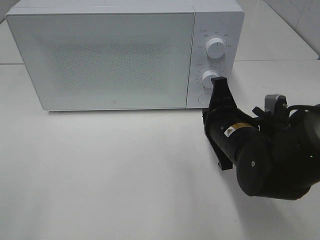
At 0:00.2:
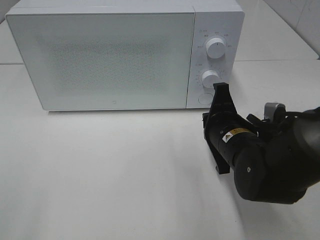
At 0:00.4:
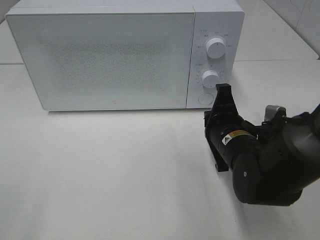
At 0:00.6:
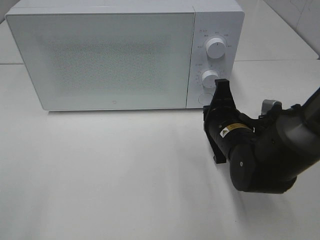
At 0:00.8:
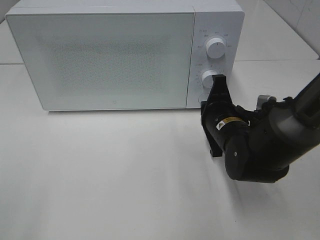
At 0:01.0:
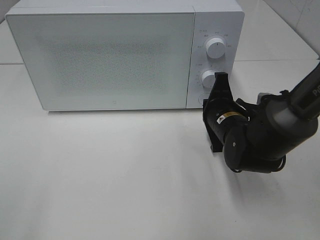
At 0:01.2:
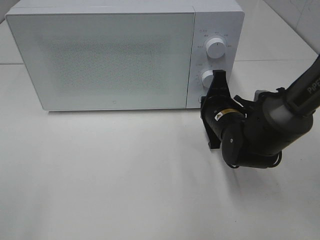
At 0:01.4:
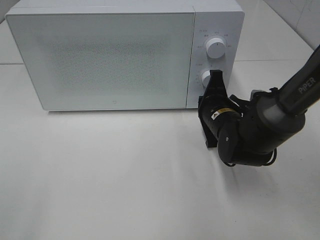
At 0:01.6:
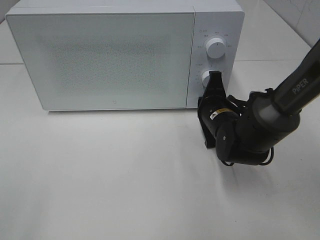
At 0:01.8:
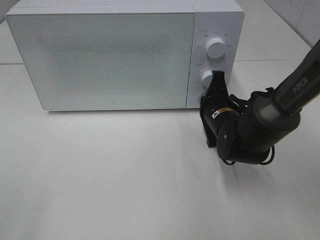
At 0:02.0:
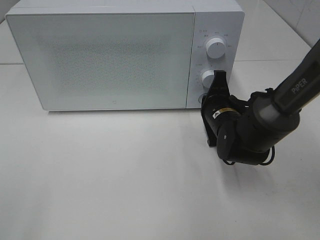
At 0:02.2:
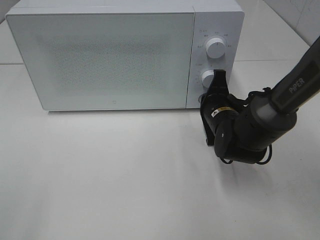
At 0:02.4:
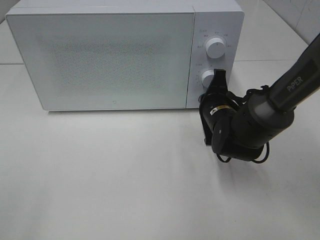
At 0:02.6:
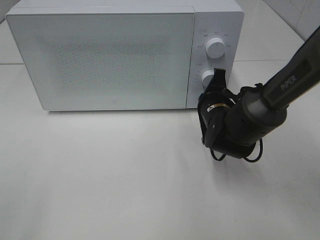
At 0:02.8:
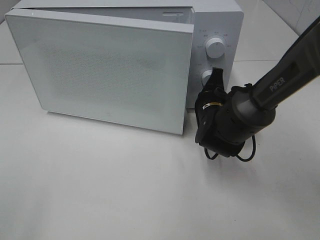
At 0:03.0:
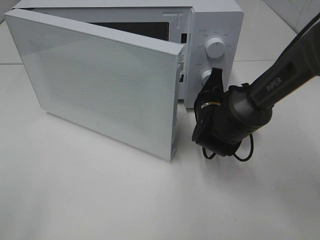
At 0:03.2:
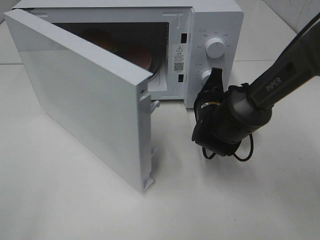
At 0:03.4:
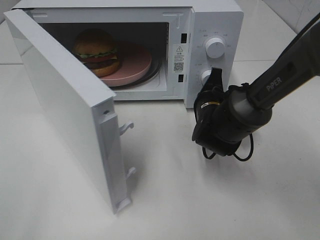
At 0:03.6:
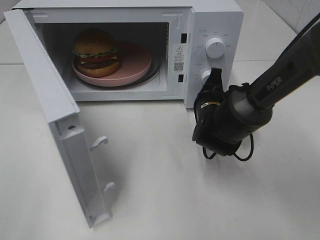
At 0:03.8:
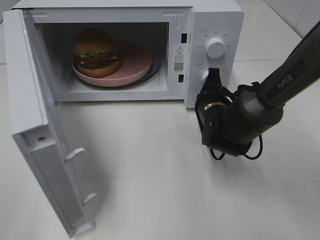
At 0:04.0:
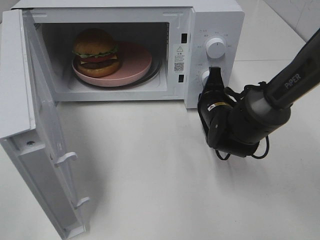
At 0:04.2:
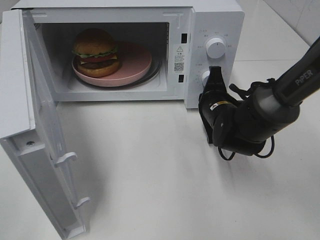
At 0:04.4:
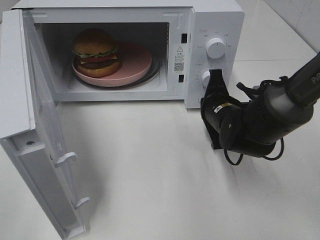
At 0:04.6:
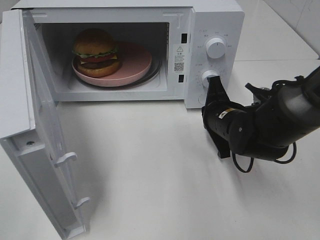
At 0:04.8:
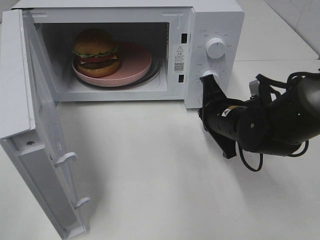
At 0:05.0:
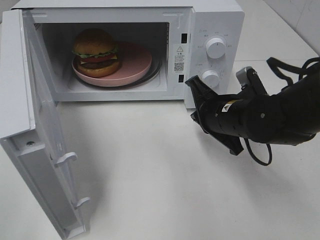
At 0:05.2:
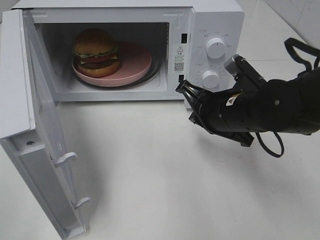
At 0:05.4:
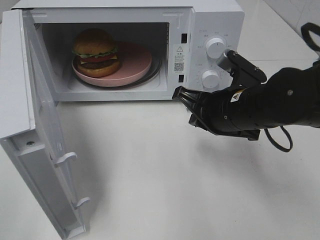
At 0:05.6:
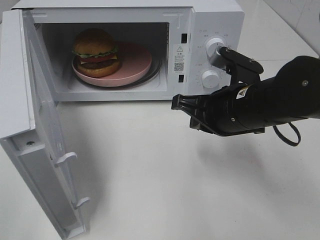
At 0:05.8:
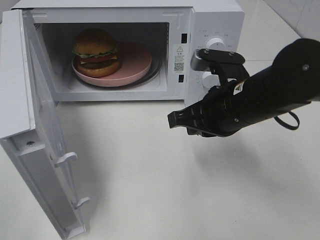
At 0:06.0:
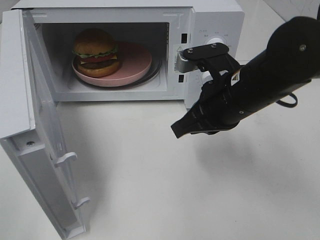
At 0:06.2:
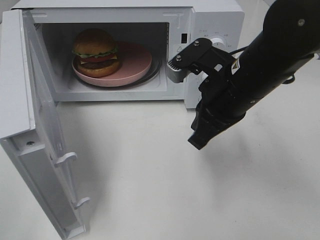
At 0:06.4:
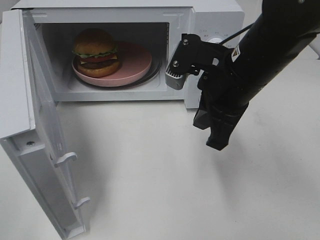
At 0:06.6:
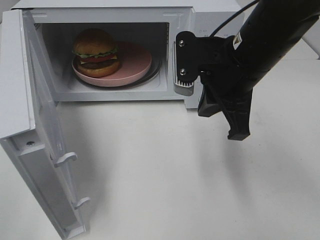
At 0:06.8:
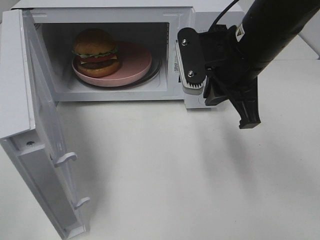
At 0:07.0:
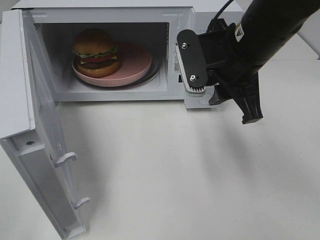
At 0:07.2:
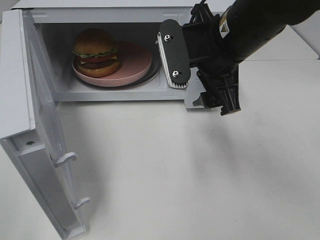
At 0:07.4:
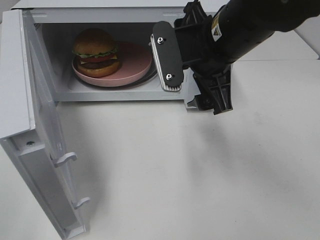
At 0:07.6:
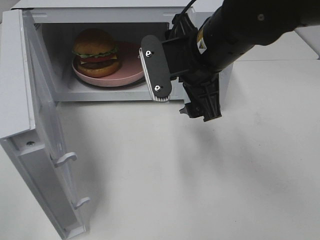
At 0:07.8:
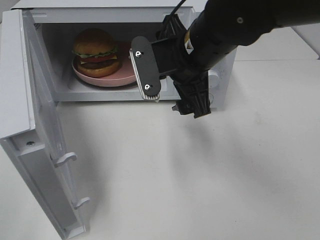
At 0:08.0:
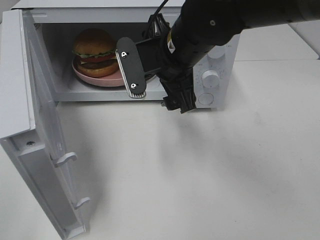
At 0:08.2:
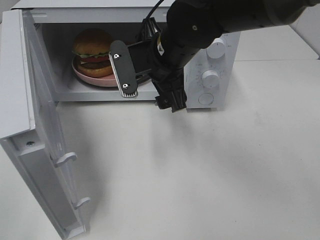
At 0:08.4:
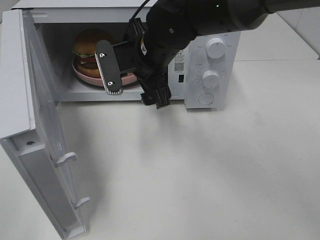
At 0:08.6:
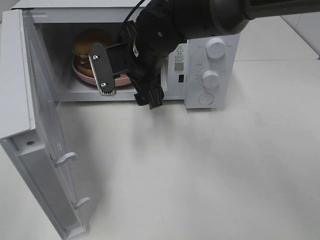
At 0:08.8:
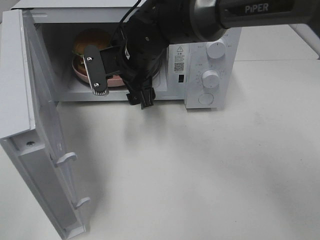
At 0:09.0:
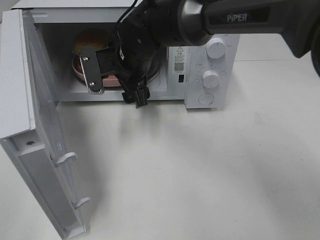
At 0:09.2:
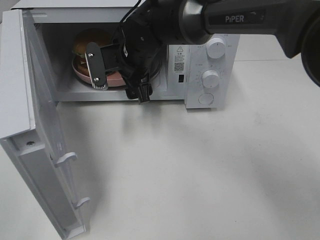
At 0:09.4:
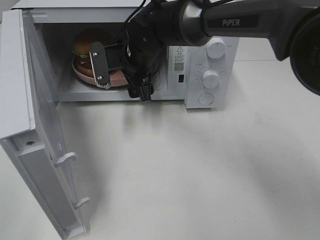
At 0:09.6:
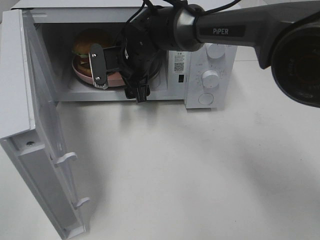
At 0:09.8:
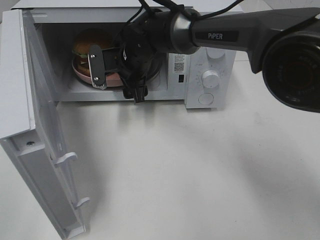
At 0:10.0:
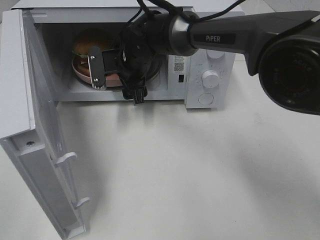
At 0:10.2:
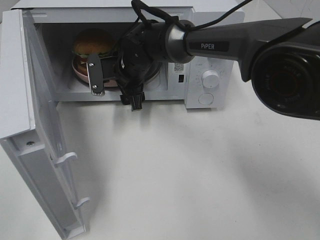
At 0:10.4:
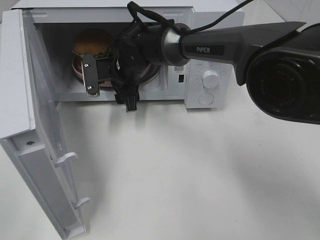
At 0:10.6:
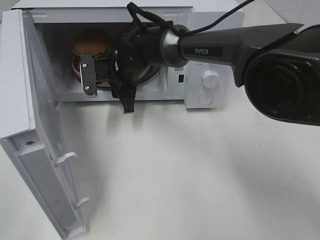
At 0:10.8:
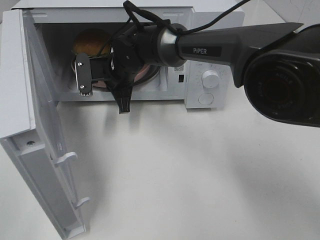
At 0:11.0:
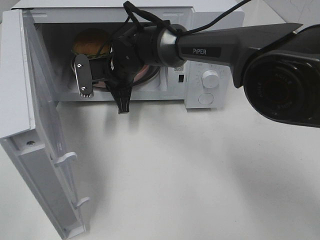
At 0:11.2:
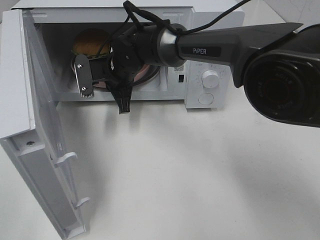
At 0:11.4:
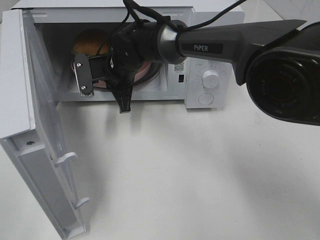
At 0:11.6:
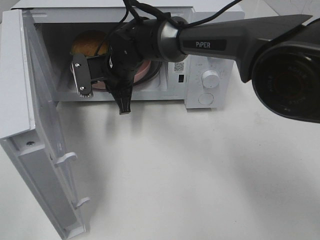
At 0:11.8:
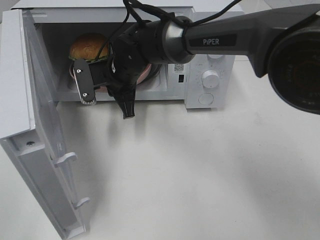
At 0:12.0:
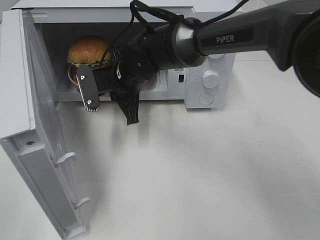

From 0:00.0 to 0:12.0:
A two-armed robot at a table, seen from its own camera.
Task of the whole recording: Heat the burger.
Step, from 0:00.0 to 0:04.4: Right hand: press the switch.
Step, from 0:04.6 to 0:10.8: Right hand: grab the plate with the hamburger.
From 0:00.0 to 0:01.6: The right gripper goes approximately 10 cm forward.
From 0:04.4 to 0:06.0: The right gripper goes some 15 cm upward and backward.
From 0:06.0 to 0:07.6: The right gripper shifts by some 5 cm, and opens its fingers.
From 0:07.6 to 0:09.0: The right gripper heads to the left, forward and downward, covering about 15 cm.
From 0:09.0 to 0:10.4: The right gripper ends up about 5 cm from where it was.
From 0:10.4 to 0:12.0: The right gripper travels backward by roughly 5 cm, and closes its fingers.

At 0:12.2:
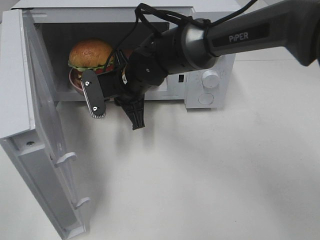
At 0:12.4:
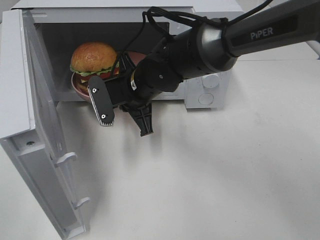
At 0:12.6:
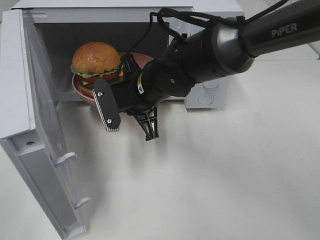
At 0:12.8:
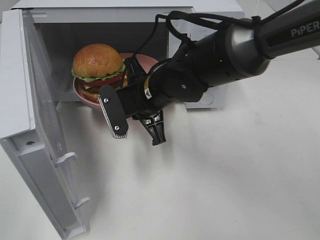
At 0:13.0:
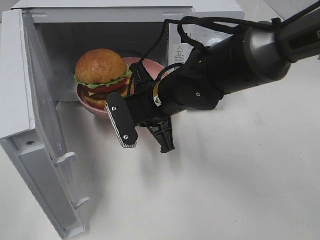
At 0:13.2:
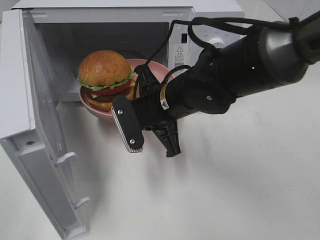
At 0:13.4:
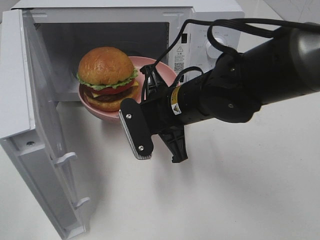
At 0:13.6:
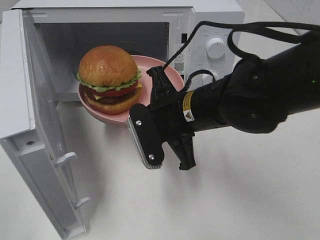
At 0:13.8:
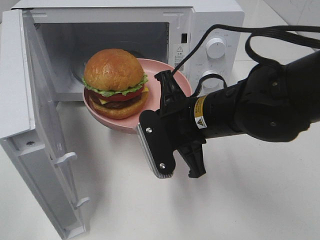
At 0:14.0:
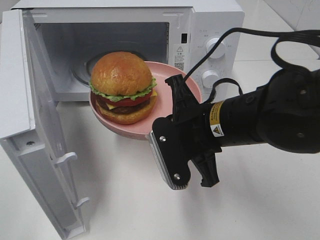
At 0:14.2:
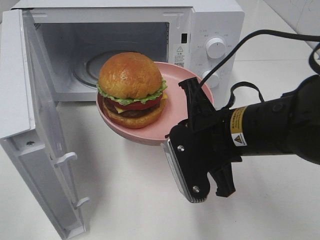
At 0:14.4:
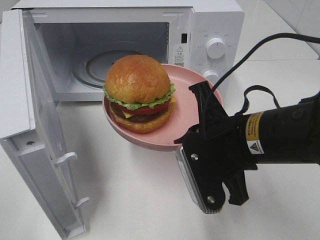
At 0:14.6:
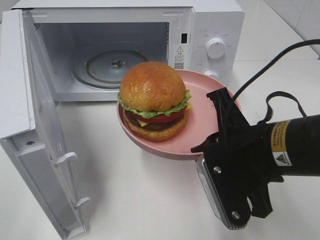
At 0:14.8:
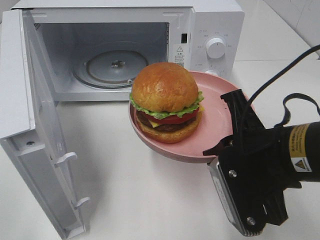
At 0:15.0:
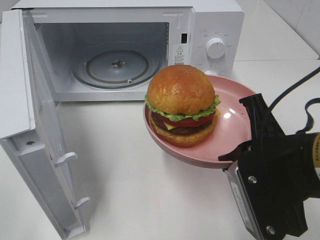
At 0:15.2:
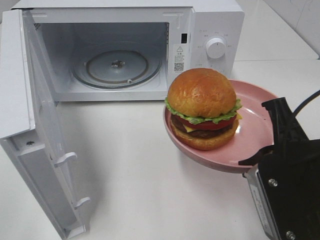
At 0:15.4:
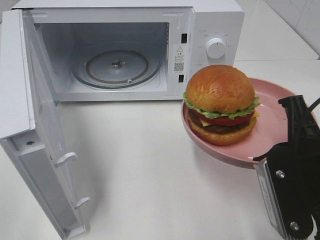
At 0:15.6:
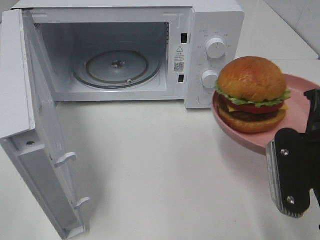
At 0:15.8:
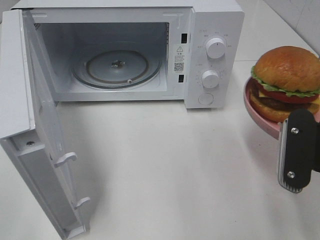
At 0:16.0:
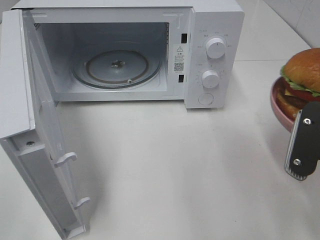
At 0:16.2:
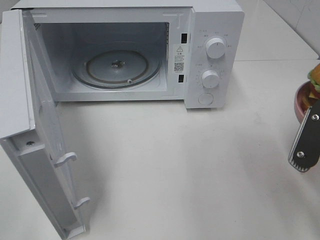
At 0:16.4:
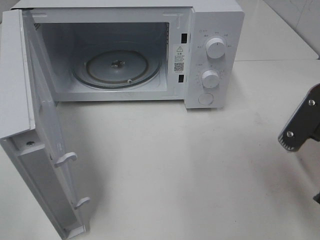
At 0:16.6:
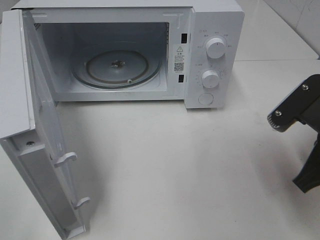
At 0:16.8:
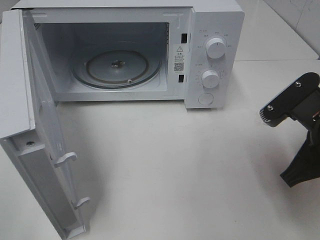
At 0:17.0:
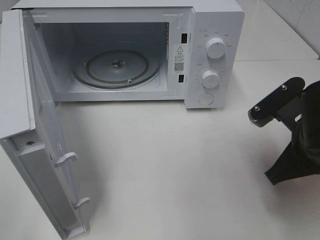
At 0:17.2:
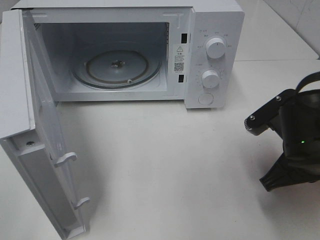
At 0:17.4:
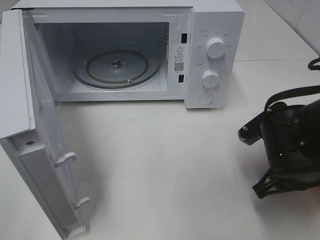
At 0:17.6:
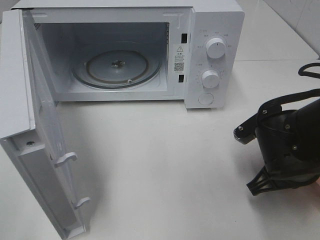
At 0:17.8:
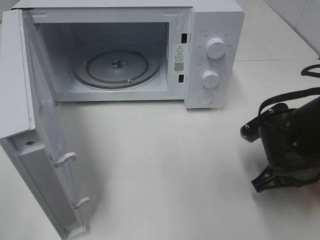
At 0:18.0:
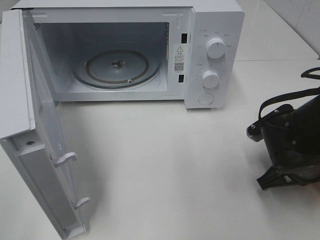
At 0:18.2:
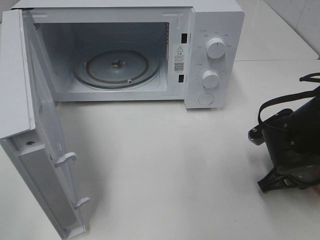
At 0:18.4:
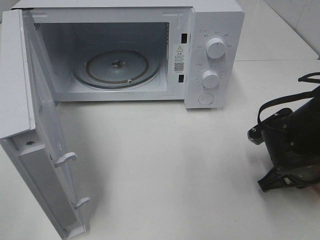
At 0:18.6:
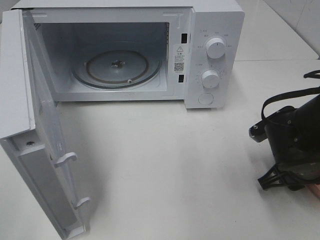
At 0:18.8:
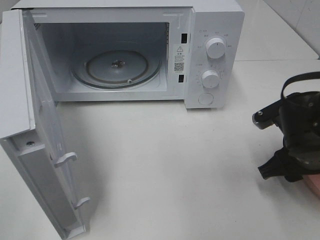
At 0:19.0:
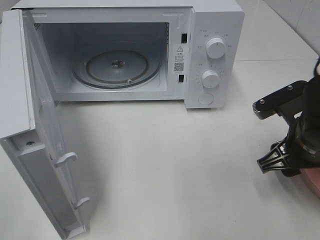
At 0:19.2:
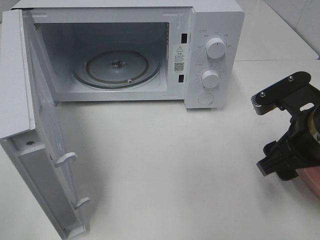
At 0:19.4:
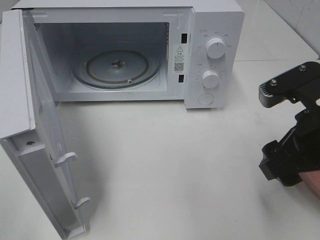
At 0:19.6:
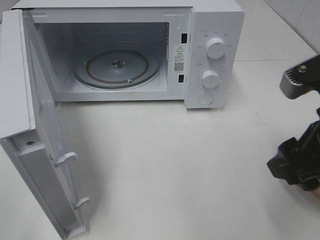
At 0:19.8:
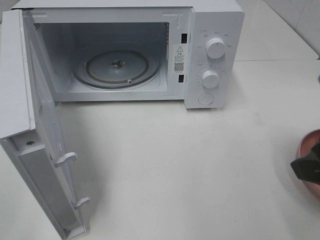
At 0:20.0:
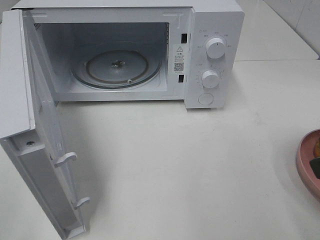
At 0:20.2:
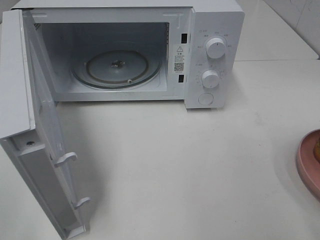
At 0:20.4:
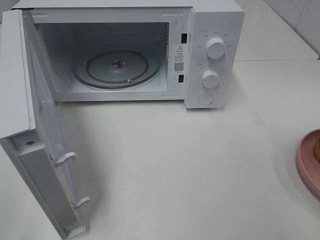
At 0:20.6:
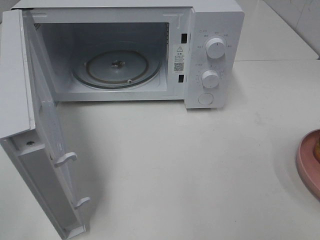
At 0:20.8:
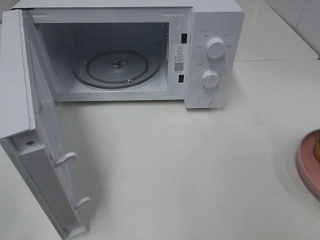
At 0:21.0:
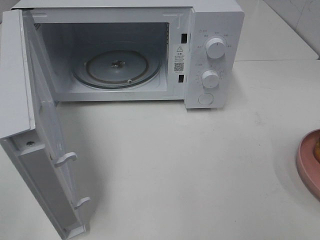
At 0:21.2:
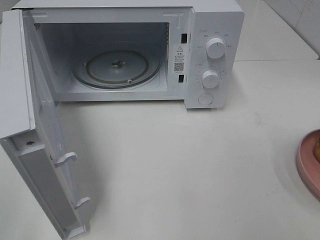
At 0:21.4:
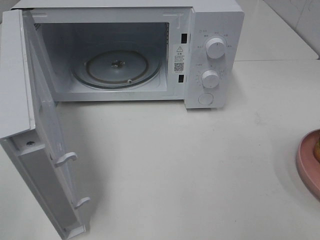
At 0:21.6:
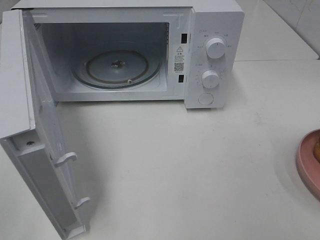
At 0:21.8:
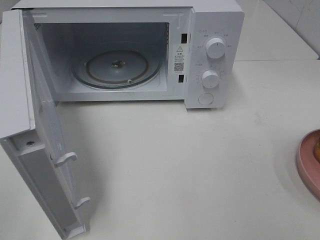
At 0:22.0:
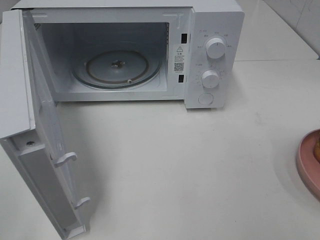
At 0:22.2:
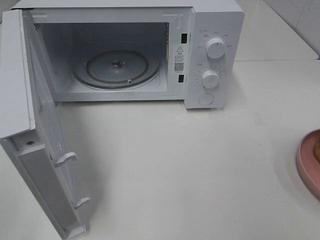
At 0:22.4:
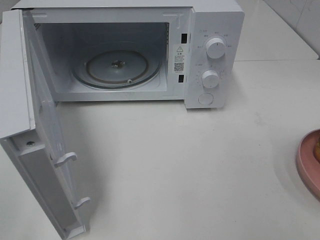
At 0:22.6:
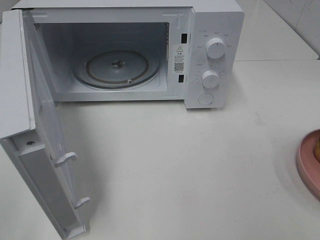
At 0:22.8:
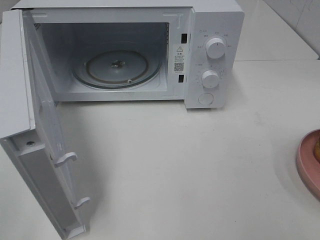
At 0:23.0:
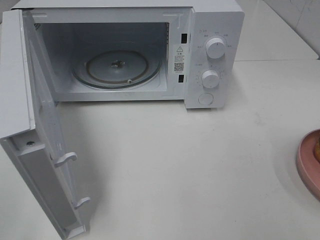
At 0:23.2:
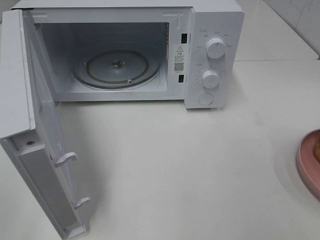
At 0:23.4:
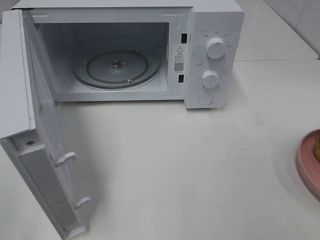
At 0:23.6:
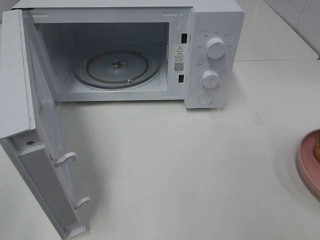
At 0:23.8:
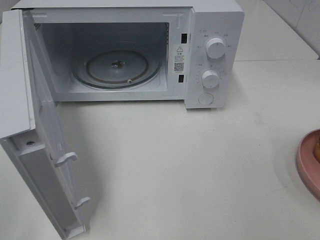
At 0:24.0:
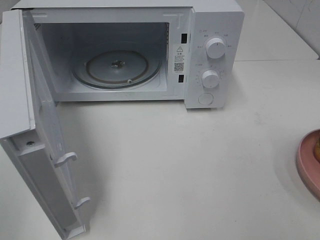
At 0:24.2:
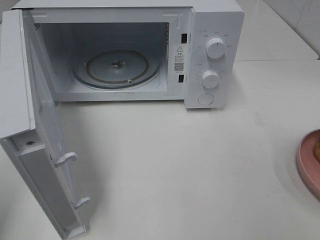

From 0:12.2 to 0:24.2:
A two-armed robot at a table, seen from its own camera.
Task of the whole recording: Heat the burger.
Step, from 0:12.2 to 0:18.6: Right hand: place the plate on the table.
From 0:12.2 to 0:13.8: The right gripper heads backward and to the right, covering about 15 cm.
From 0:13.8 to 0:15.2: The right gripper is displaced to the right and backward by approximately 15 cm.
From 0:15.2 to 0:16.6: The right gripper moves approximately 5 cm.
From 0:16.6 to 0:18.2: The right gripper travels downward and forward by some 10 cm.
From 0:18.2 to 0:19.8: The right gripper travels upward and backward by approximately 20 cm, and opens up.
From 0:19.8 to 0:21.2: The right gripper goes some 15 cm backward and to the right.
From 0:21.2 to 0:22.6: The two grippers keep their place.
